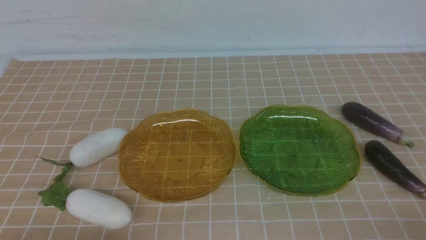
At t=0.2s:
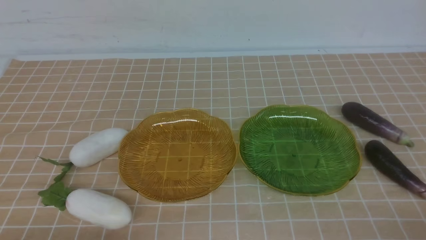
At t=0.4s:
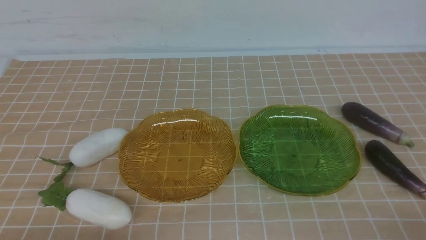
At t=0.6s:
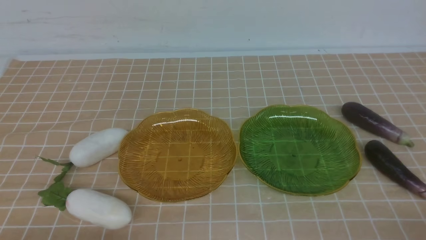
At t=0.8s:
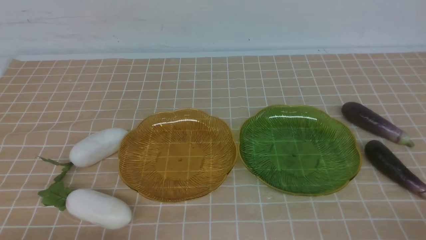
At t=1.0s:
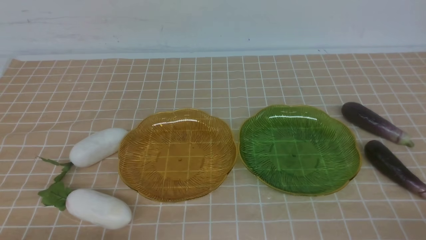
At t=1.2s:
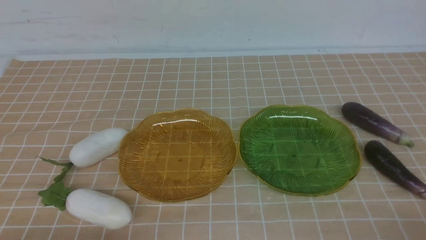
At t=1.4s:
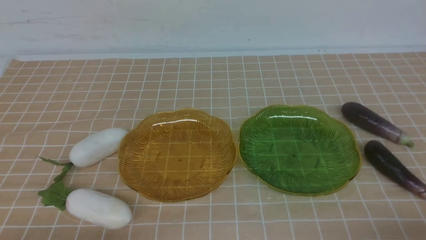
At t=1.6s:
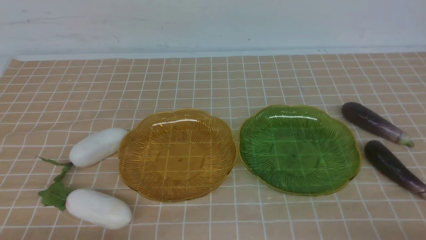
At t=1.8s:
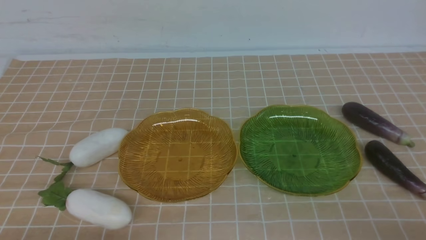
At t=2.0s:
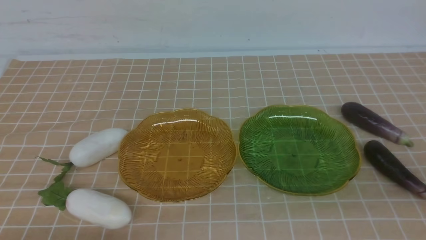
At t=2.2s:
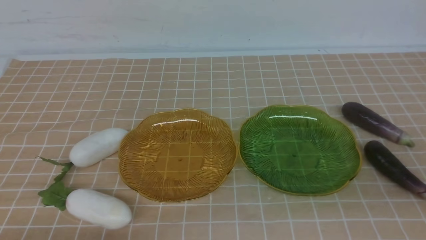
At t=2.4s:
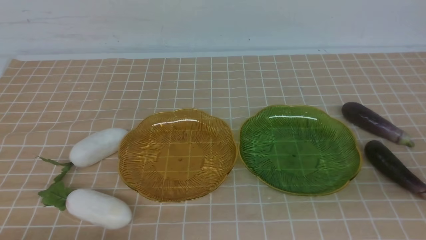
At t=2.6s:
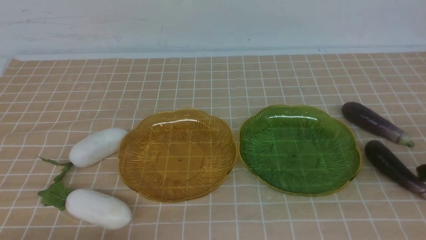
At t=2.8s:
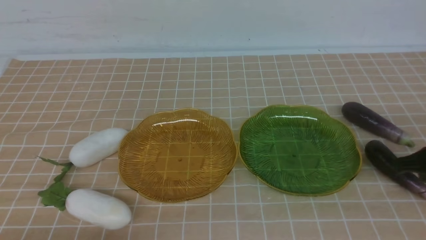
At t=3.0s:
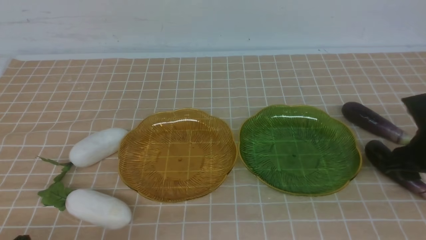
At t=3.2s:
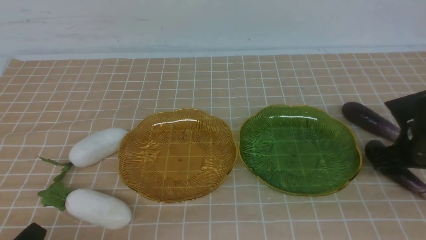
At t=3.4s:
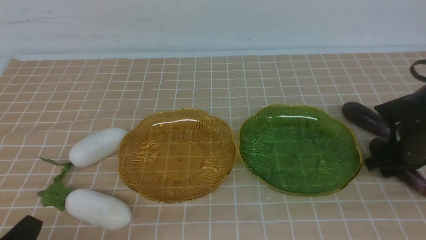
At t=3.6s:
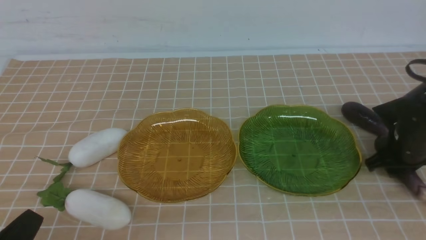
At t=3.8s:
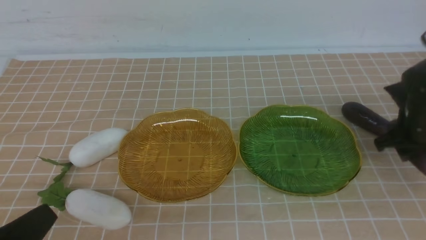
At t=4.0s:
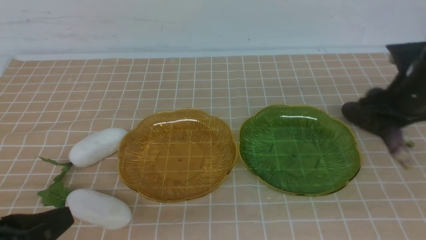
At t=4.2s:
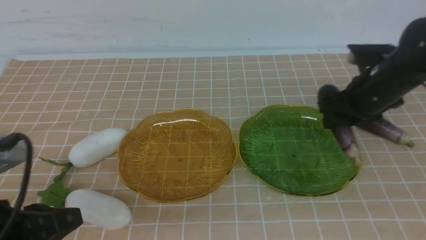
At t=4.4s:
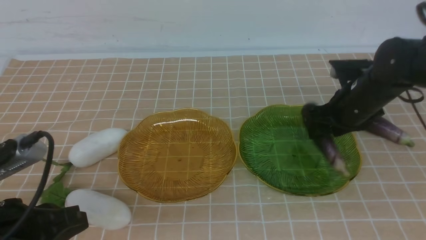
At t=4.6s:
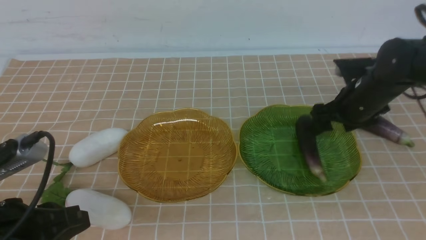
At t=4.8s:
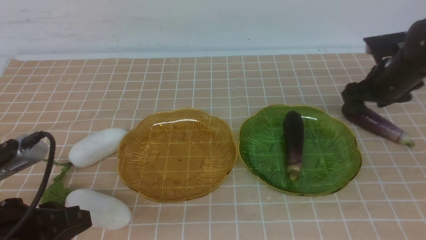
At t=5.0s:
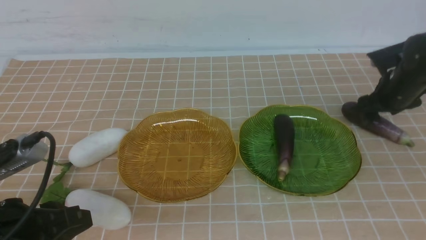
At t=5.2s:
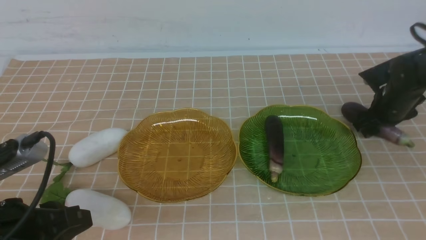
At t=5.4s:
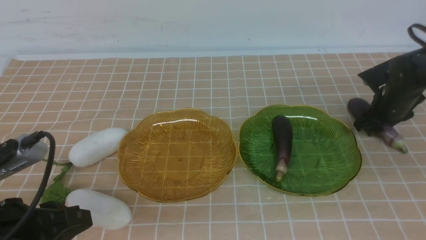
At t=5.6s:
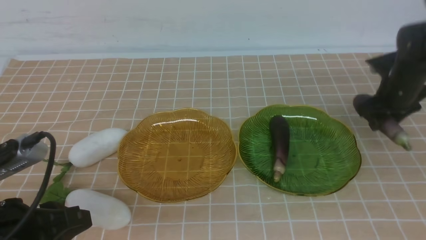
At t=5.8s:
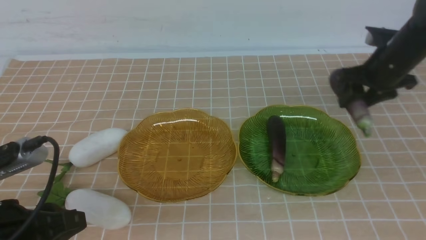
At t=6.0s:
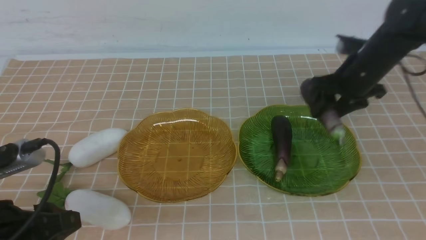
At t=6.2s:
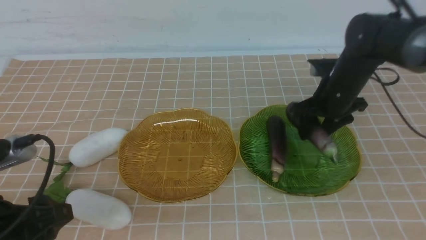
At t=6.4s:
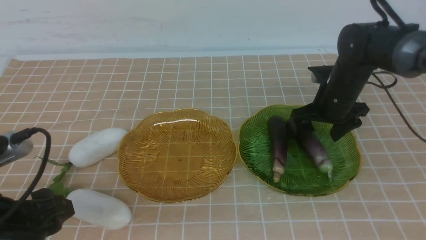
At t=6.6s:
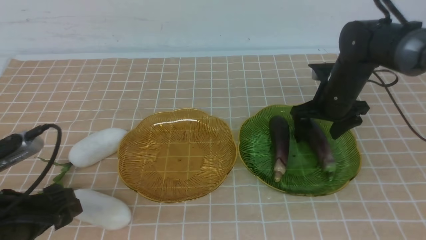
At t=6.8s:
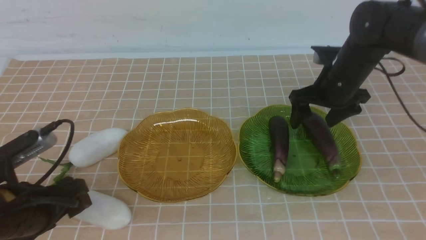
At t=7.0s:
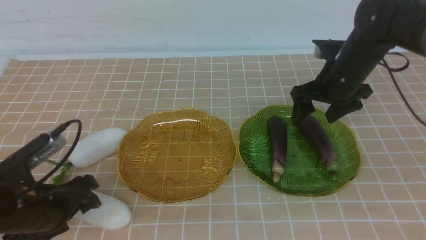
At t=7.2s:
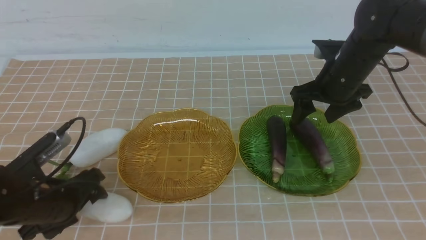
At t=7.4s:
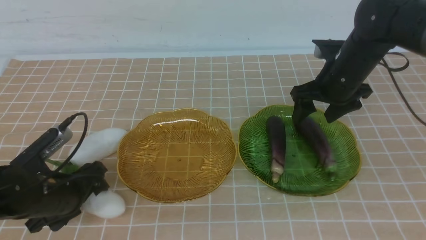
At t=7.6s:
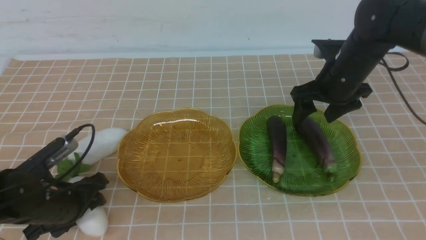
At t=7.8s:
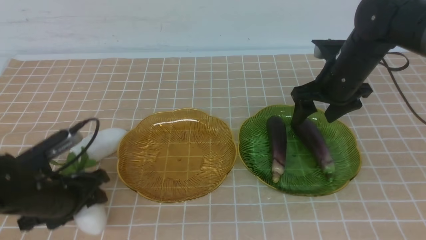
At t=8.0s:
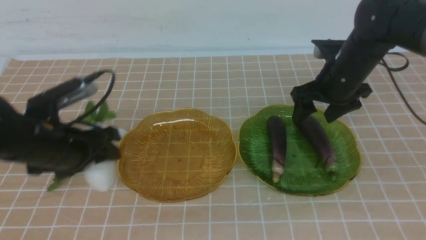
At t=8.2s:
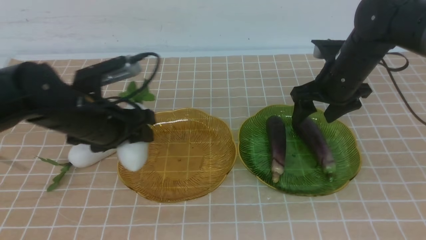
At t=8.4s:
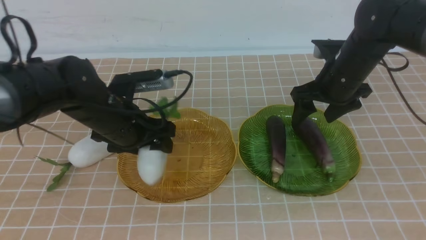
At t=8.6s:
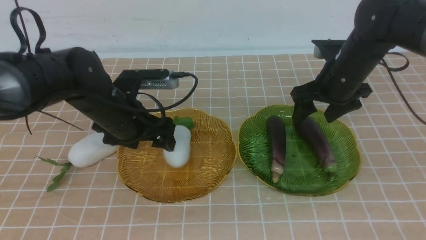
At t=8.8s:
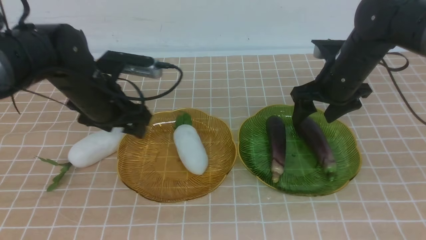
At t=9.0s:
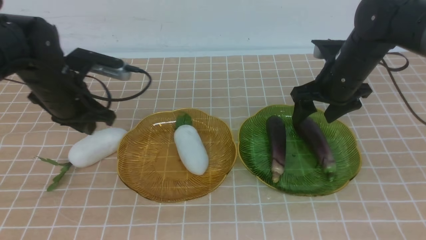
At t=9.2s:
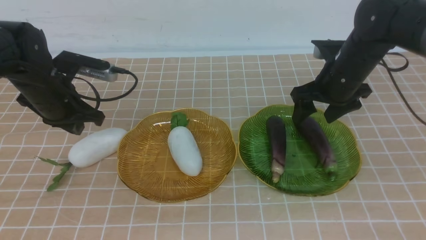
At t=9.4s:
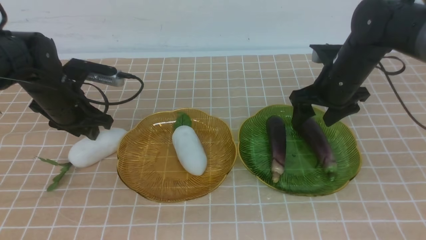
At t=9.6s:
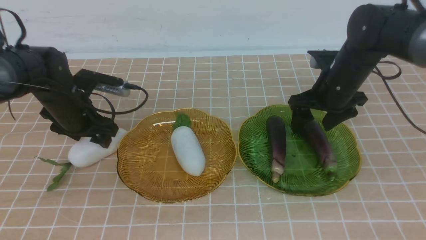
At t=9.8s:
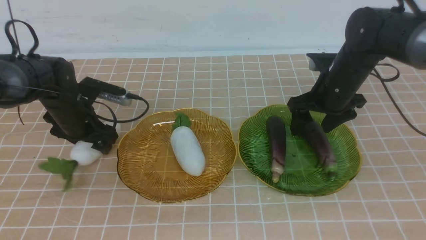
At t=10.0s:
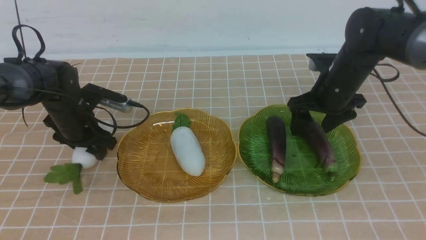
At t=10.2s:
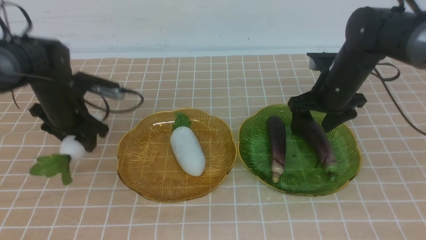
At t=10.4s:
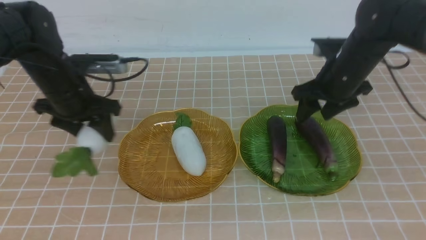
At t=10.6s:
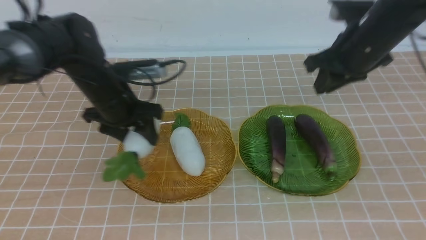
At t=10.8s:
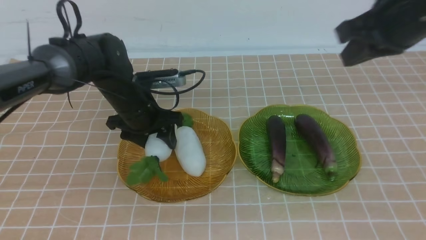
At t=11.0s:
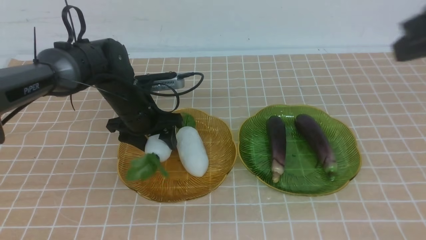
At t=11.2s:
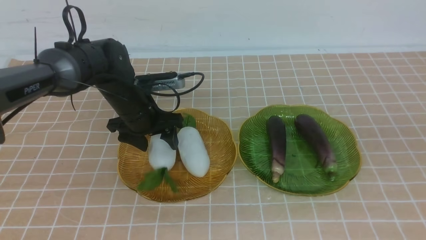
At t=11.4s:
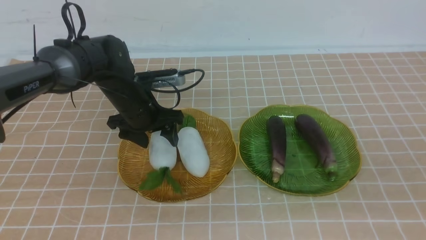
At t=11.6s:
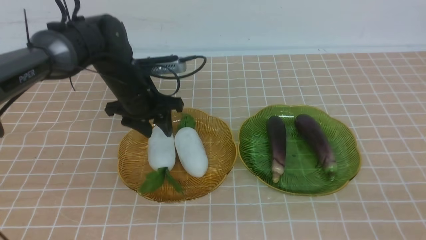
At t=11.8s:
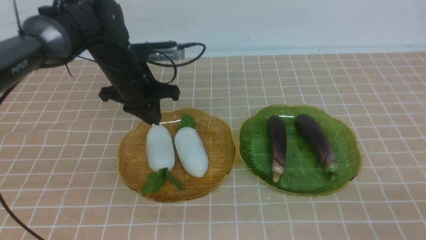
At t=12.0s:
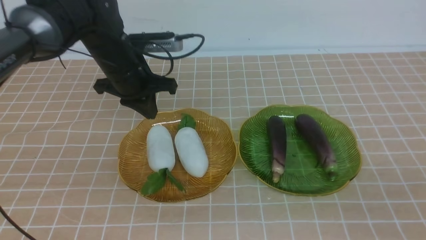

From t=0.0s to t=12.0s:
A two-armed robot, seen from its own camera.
Step, from t=0.0s to t=4.6s: use the right arm to grab an eggplant and put it into the right plate.
Step, from t=5.0s to t=6.6s: use the right arm to grab an eggplant and put it into the right plate.
Step, from t=6.8s to t=11.6s: use the left arm to grab a radish and put it into the left plate.
From t=1.6s to t=3.0s: The right gripper travels forward by some 25 cm, and opens up.
From t=3.0s to t=4.4s: The left gripper heads upward and forward, covering about 10 cm, while the right gripper heads forward and to the left, covering about 15 cm.
From t=4.4s to t=6.0s: The left gripper opens up. The right gripper reaches roughly 10 cm to the right, then returns.
From t=6.0s to t=7.6s: The left gripper travels forward by about 15 cm.
From t=7.6s to t=9.0s: The left gripper travels forward by some 10 cm.
From t=9.0s to t=10.4s: The right gripper travels upward and backward by approximately 25 cm, and closes up, while the left gripper heads to the right, covering roughly 10 cm.
From t=10.4s to t=12.0s: The left gripper travels upward by about 15 cm, and closes up; the right gripper travels backward and downward by approximately 25 cm.

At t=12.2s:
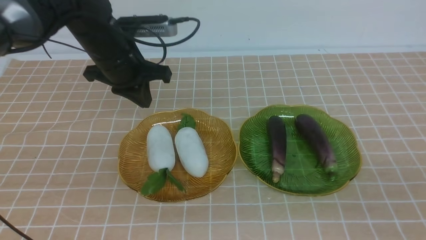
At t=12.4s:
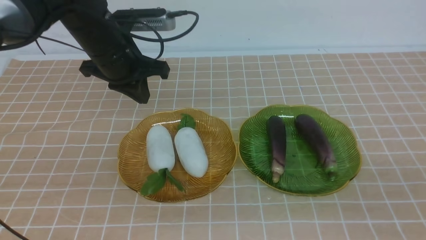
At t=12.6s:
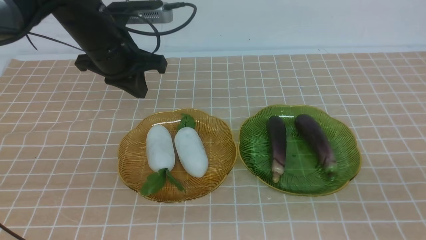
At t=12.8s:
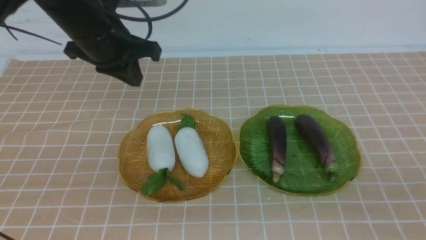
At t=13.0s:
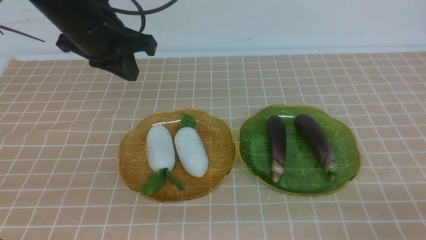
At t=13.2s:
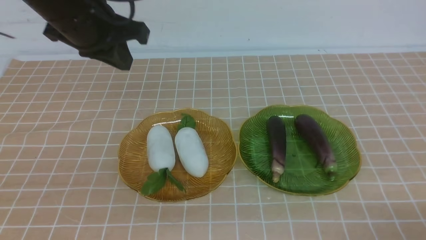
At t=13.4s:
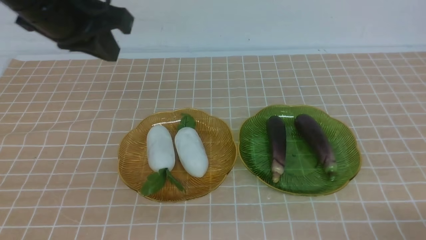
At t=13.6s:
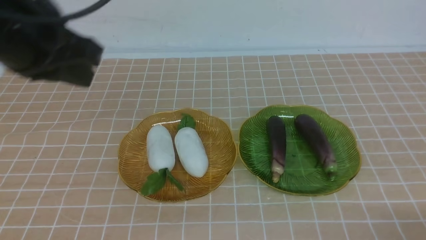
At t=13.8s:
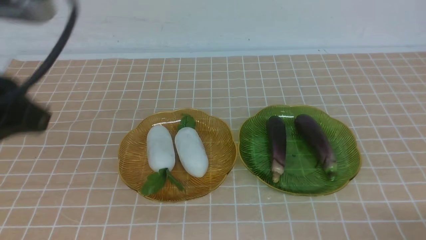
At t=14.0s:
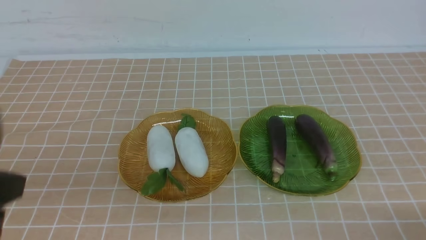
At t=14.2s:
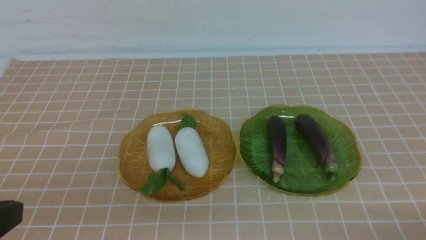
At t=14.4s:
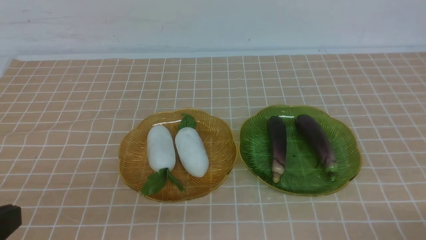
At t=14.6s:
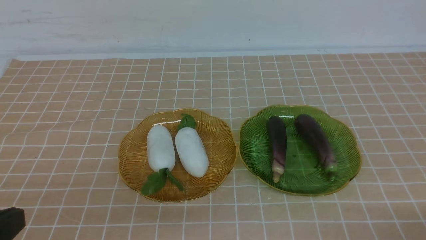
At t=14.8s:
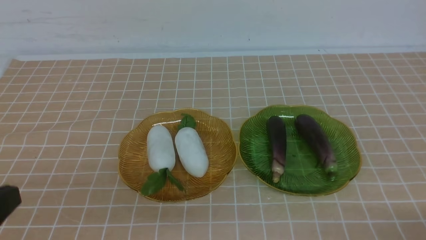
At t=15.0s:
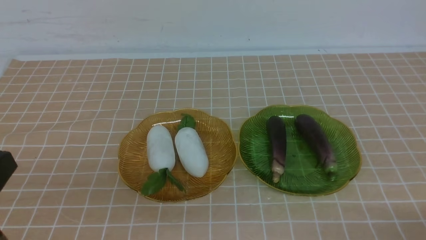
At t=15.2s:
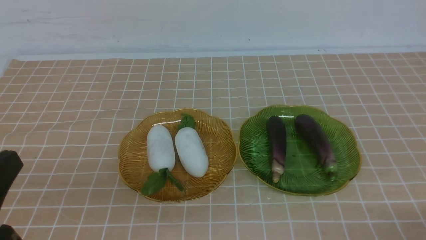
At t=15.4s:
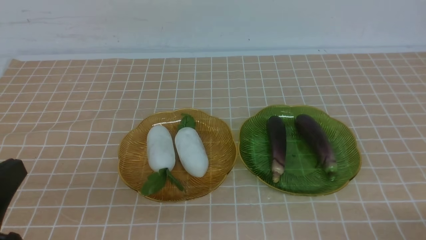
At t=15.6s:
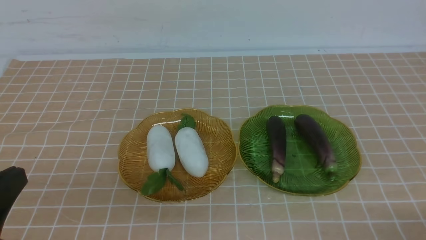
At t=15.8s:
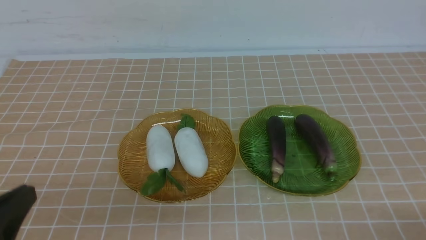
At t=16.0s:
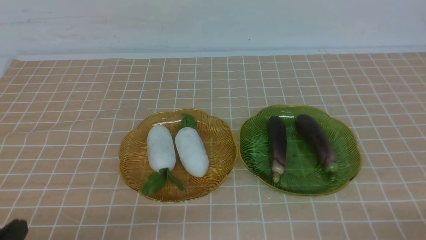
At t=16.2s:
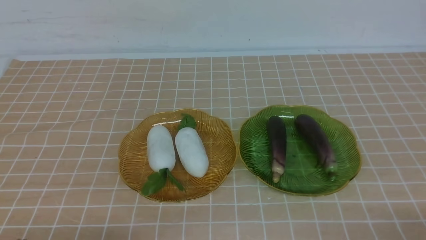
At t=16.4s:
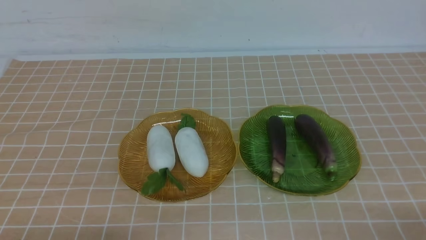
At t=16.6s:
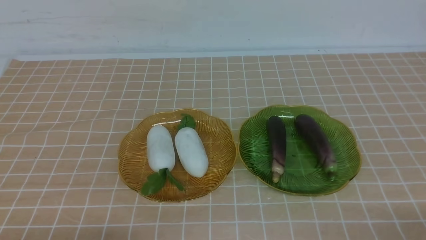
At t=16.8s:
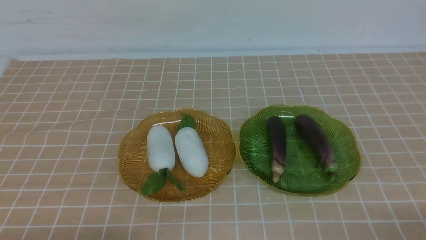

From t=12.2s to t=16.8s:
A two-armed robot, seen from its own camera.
From t=12.2s to t=13.8s: The left gripper goes about 30 cm backward.
From t=13.8s to t=15.2s: The left gripper is displaced downward by approximately 10 cm.
From t=15.2s to t=16.8s: The left gripper goes roughly 5 cm downward.
